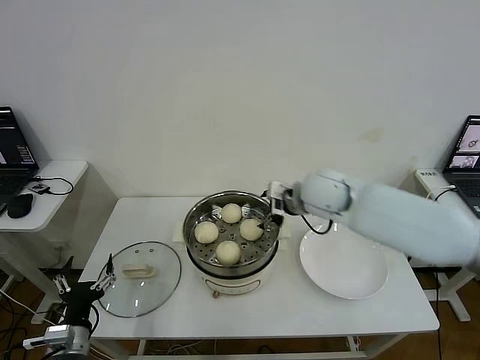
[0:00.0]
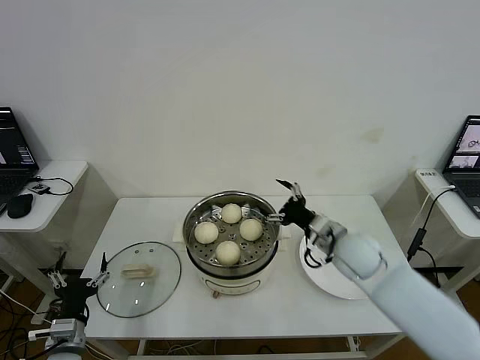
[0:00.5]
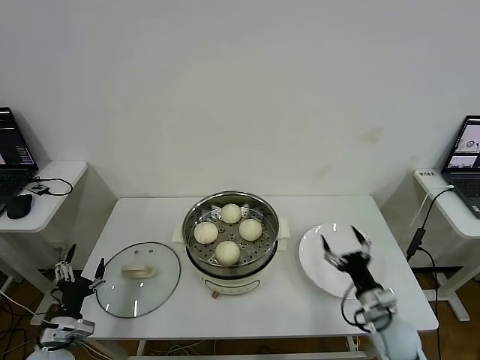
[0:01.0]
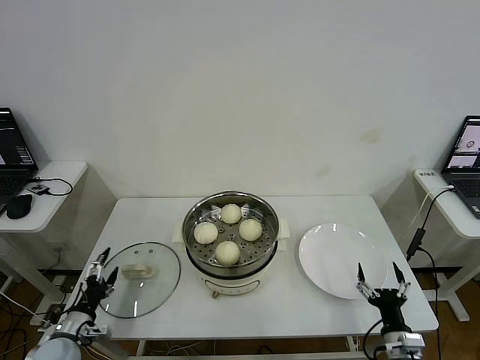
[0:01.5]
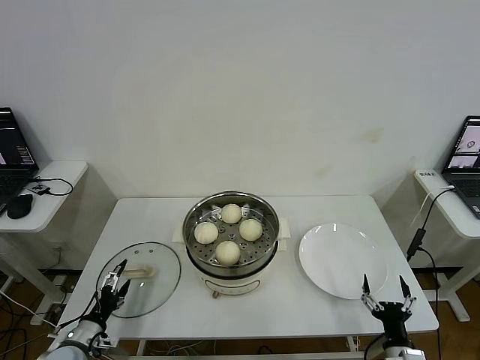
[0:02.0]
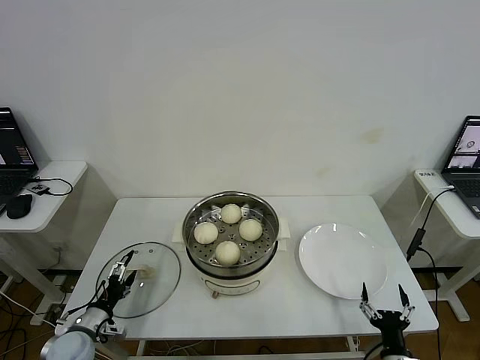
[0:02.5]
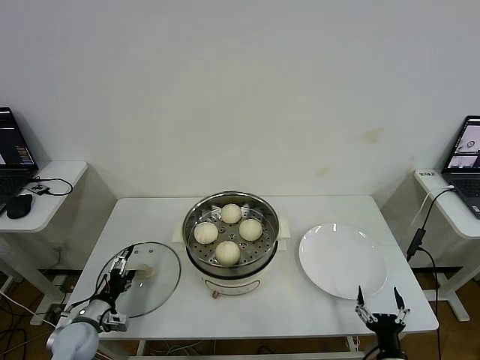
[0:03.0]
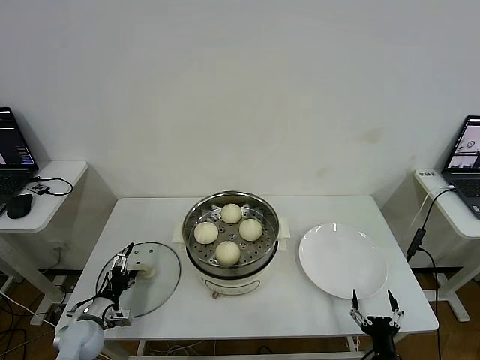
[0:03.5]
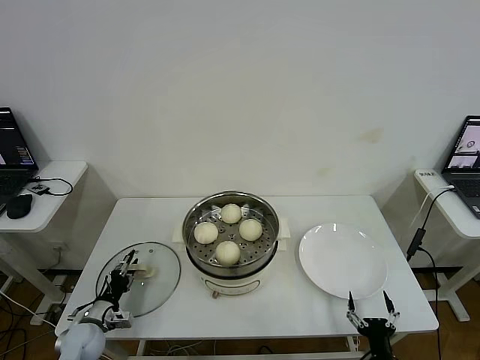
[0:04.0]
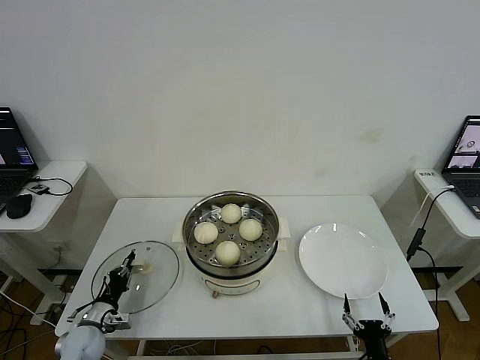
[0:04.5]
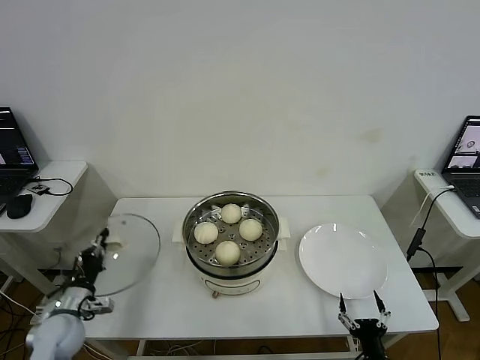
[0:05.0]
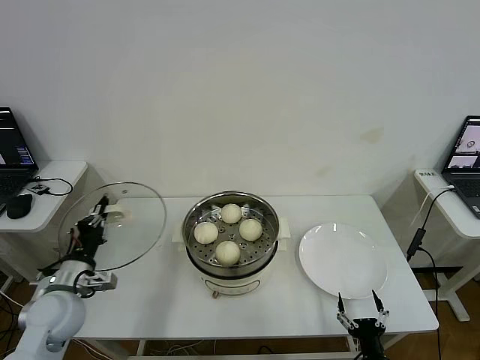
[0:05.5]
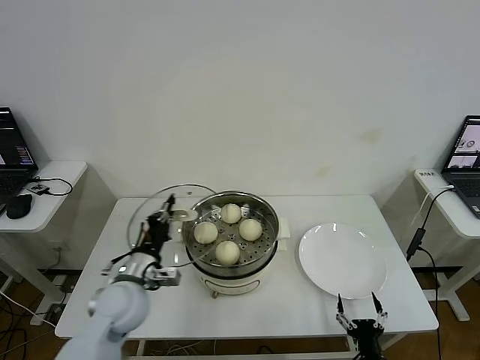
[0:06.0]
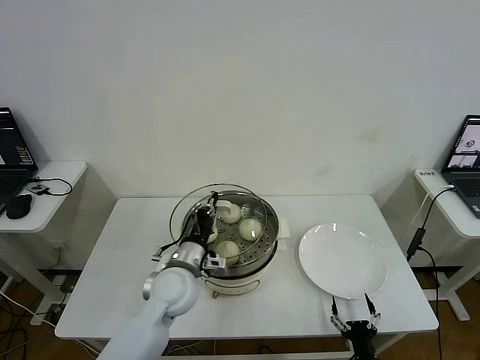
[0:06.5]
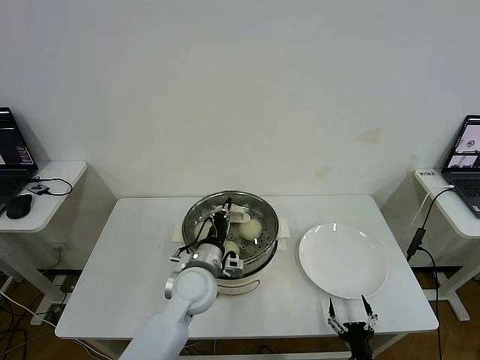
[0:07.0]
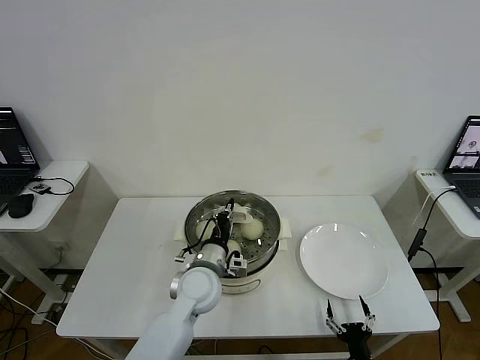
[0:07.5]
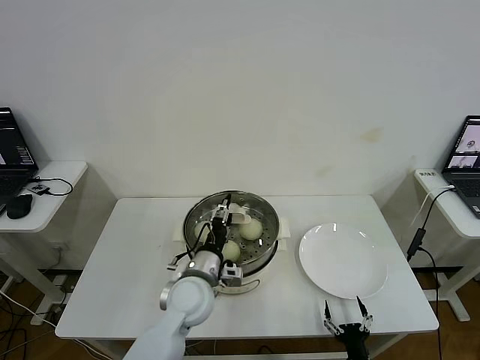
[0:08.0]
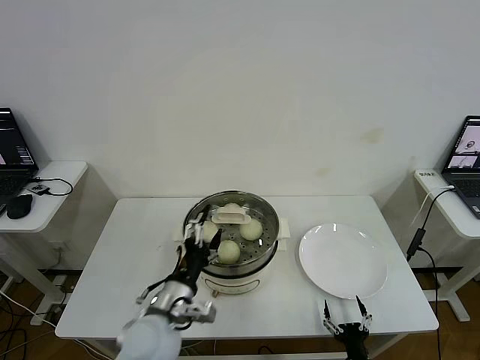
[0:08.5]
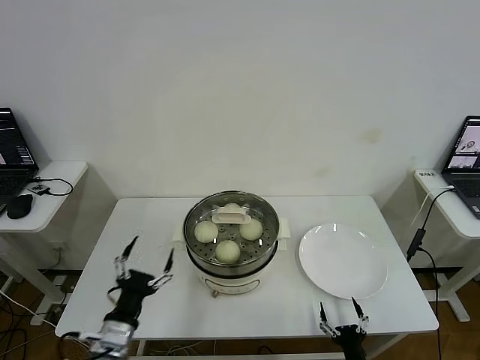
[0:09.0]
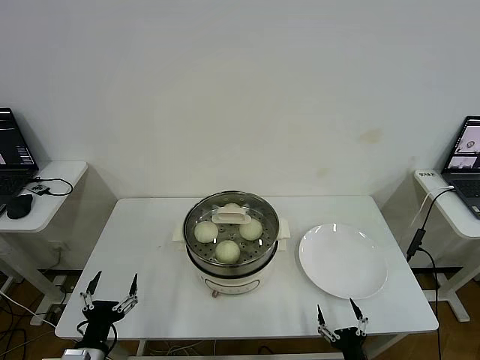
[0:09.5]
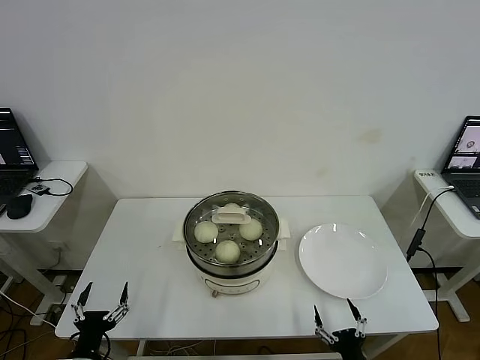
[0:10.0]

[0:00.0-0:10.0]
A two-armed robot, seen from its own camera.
Step, 0:00.0 to 0:04.5: Grasp the pot lid with left gripper.
Step, 0:05.0 to 0:07.5: Place the pot lid on the steamer with left gripper.
0:00.0 to 0:02.0: The left gripper travels downward and to the left by approximately 10 cm. Meanwhile the right gripper goes approximately 50 cm backward, downward and to the right.
0:02.0 to 0:04.0: The left gripper moves forward, roughly 5 cm, and closes its fingers.
0:04.0 to 0:06.0: The left gripper is displaced upward and to the right by some 25 cm, and closes up.
0:06.0 to 0:08.0: The left gripper shifts about 15 cm to the right, and opens up.
0:08.0 to 0:10.0: The left gripper moves to the left, backward and downward, about 35 cm, and opens its fingers, while the right gripper shifts some 5 cm upward.
